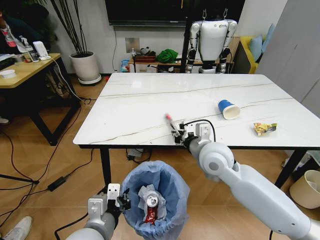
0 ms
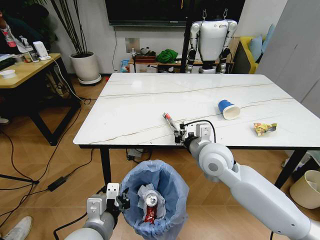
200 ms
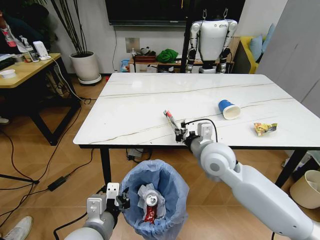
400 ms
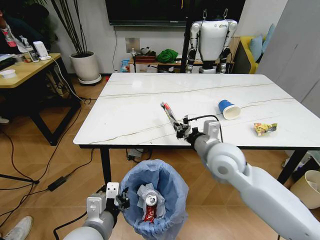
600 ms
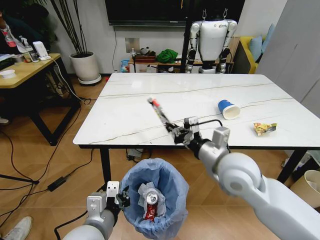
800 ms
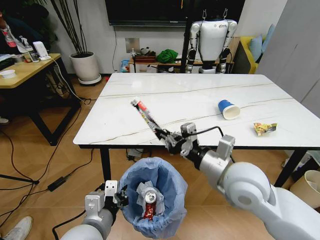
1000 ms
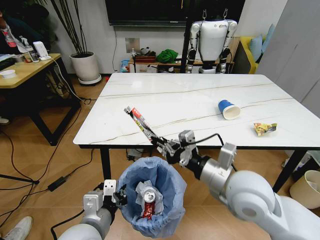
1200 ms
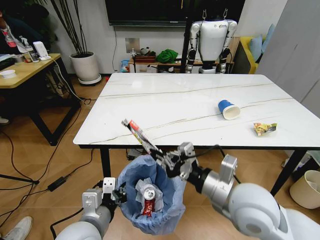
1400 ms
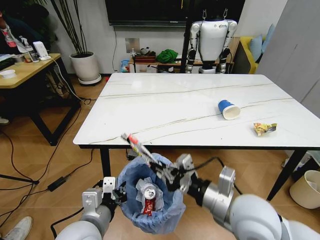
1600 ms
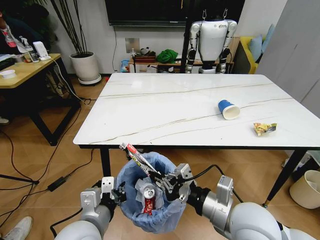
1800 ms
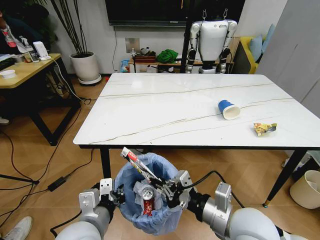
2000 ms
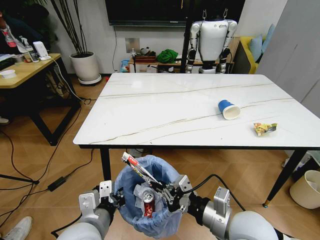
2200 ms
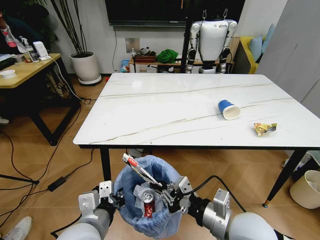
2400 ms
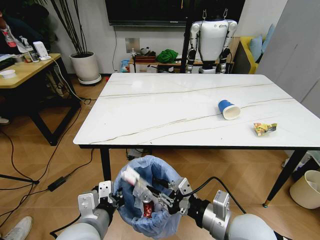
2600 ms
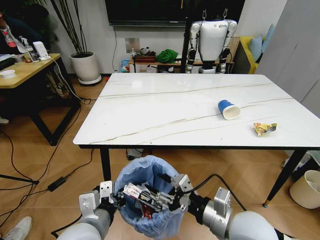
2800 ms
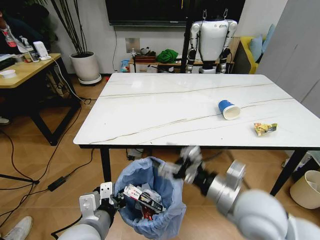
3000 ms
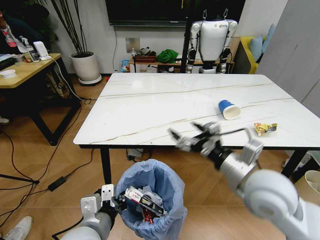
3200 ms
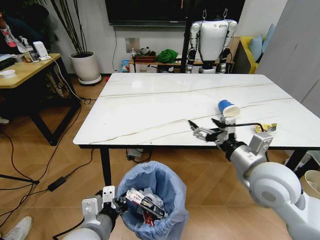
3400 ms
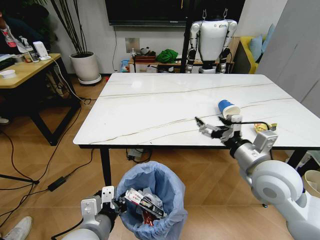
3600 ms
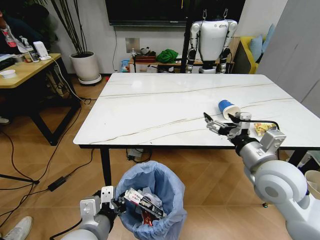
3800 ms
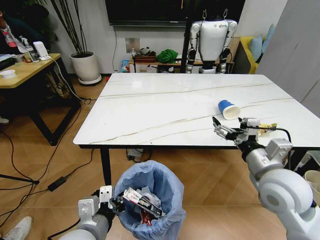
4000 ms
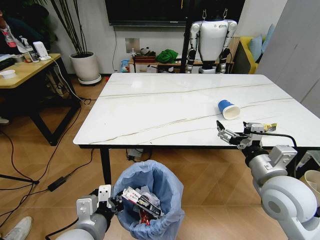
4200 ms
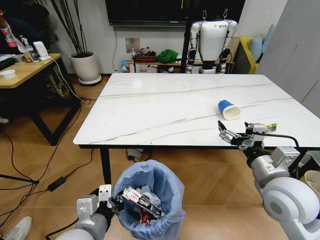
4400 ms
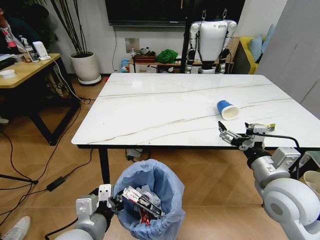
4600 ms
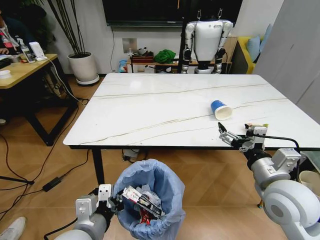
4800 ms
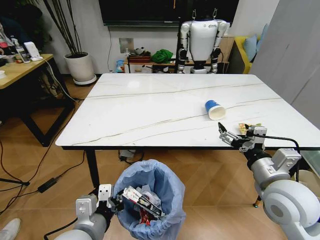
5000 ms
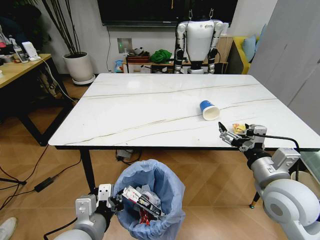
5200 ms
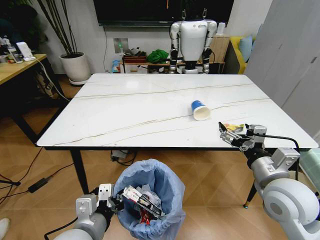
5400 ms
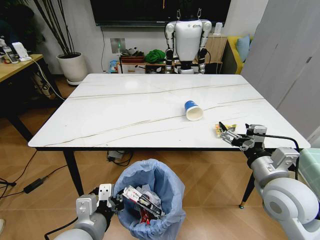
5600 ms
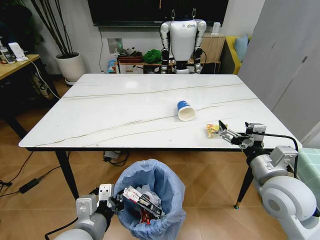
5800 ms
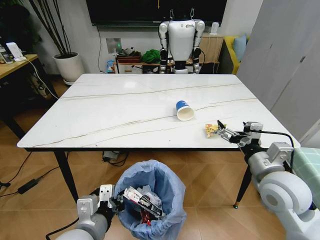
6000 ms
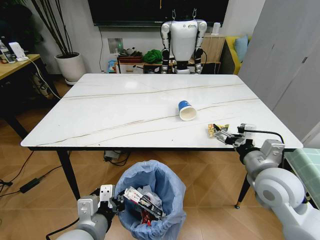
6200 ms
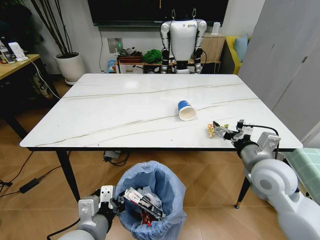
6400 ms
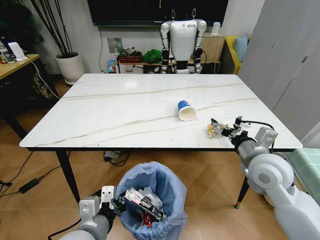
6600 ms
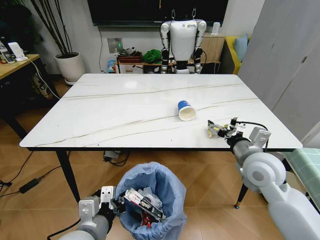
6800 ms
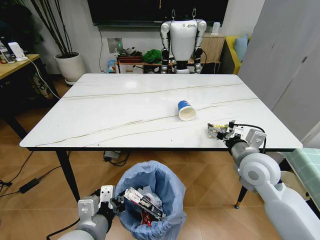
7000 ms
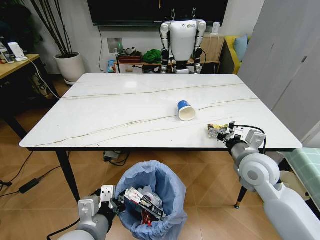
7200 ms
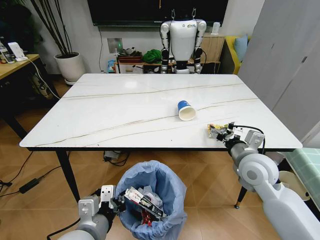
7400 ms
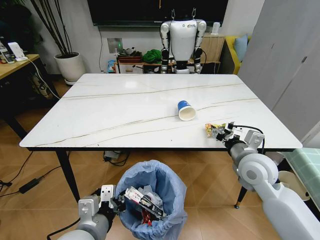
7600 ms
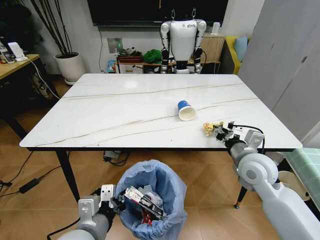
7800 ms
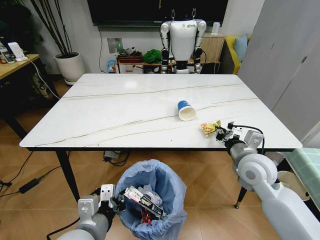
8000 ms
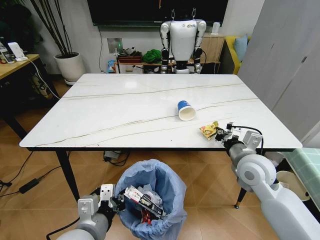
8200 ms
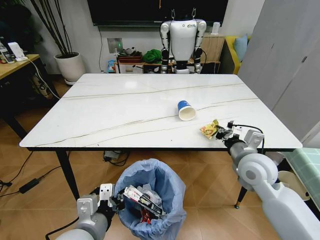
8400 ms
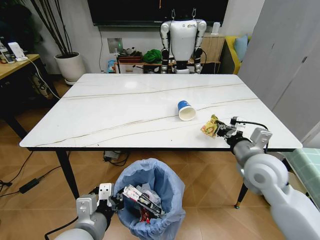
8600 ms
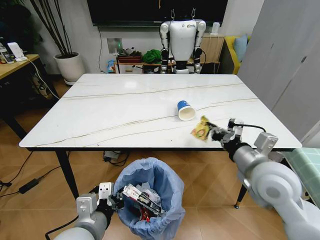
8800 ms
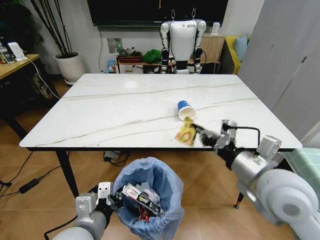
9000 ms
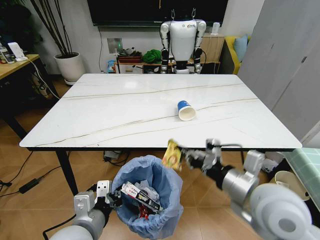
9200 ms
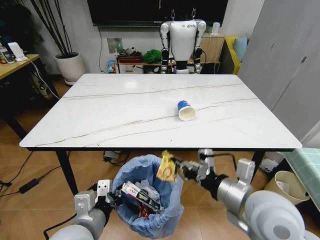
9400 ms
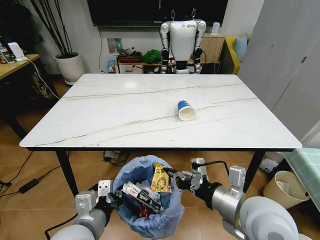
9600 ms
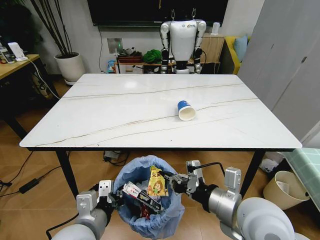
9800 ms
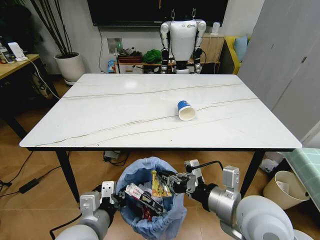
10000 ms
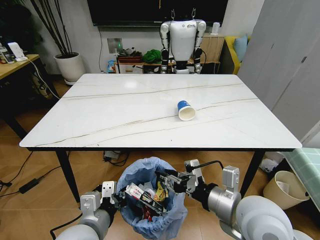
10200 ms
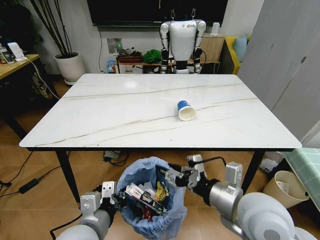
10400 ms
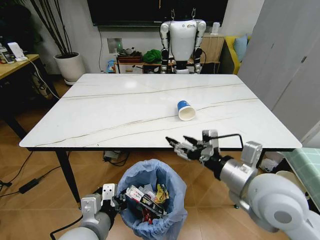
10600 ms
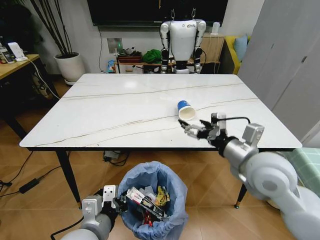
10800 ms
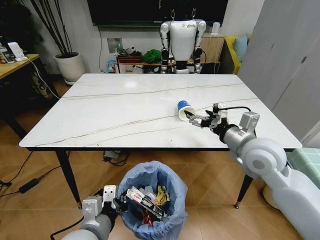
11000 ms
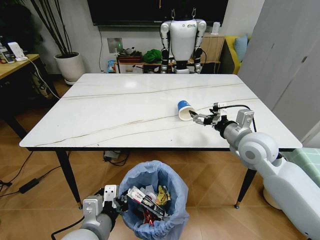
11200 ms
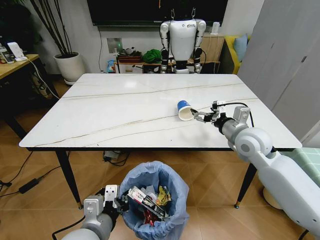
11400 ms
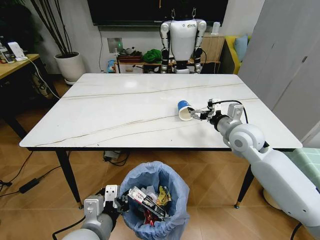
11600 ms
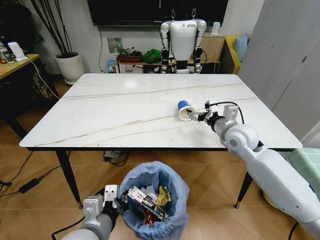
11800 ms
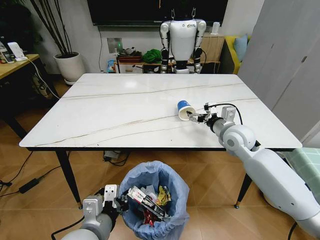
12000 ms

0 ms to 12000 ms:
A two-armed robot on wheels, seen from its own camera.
Task of the whole recording: Pick up the trash bin and place the trash from the table into it.
0 ms to 1600 ms: The right gripper is displaced backward by about 15 cm.
1600 ms to 3000 ms: The right gripper opens up.
3000 ms to 4400 ms: The right gripper is displaced to the right by some 10 cm.
6000 ms to 7600 ms: The right gripper shifts approximately 5 cm forward, and closes.
7600 ms to 9000 ms: The right gripper moves backward and upward, about 15 cm, and closes up.
9000 ms to 10400 ms: The right gripper shifts by about 5 cm, and opens its fingers.
10400 ms to 12000 ms: The right gripper travels forward by approximately 25 cm, and opens its fingers.

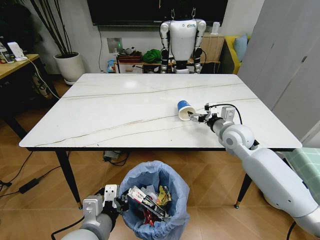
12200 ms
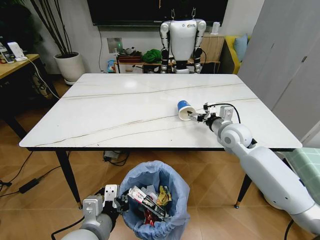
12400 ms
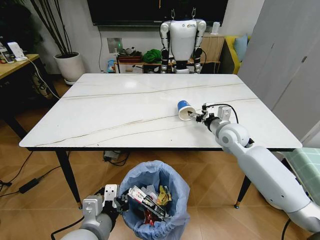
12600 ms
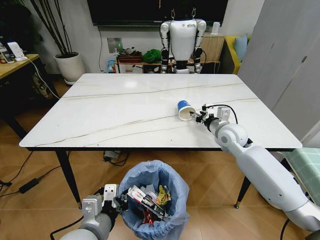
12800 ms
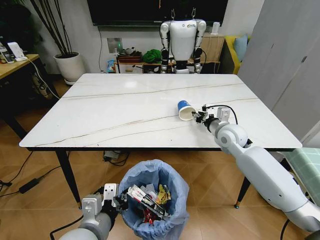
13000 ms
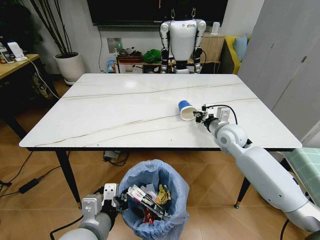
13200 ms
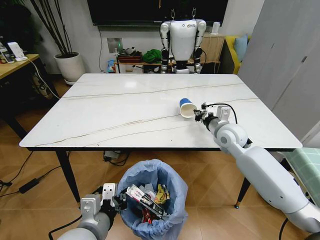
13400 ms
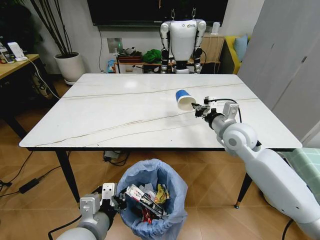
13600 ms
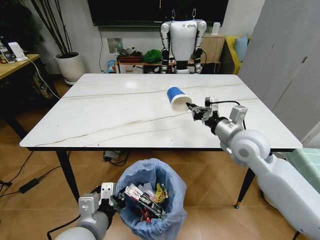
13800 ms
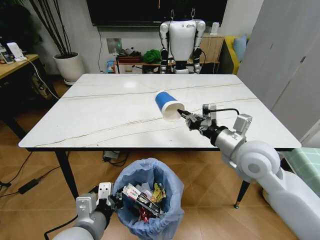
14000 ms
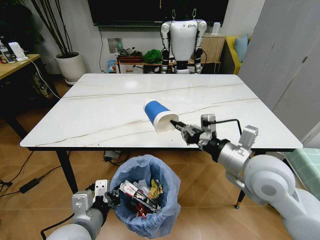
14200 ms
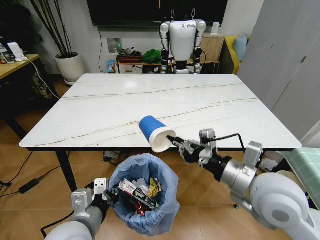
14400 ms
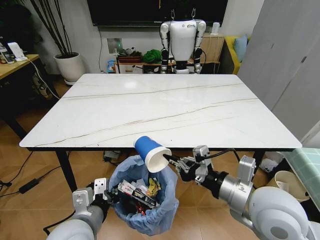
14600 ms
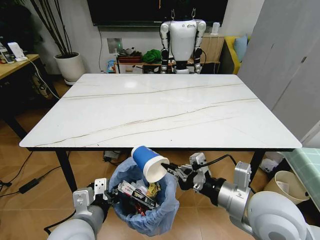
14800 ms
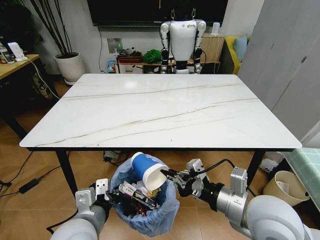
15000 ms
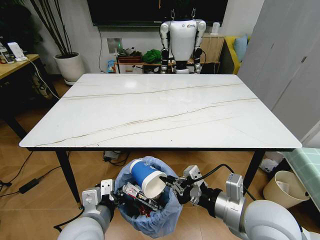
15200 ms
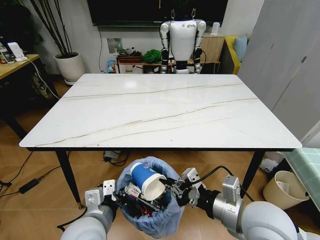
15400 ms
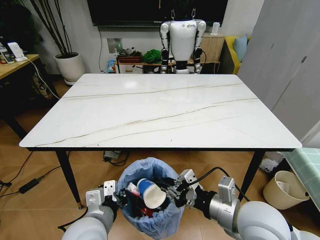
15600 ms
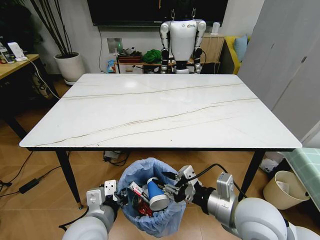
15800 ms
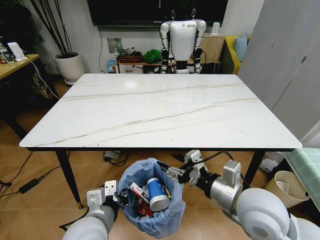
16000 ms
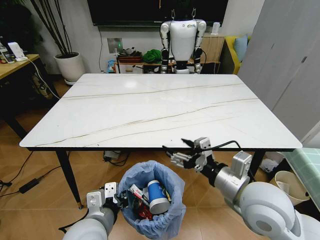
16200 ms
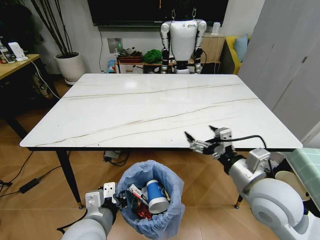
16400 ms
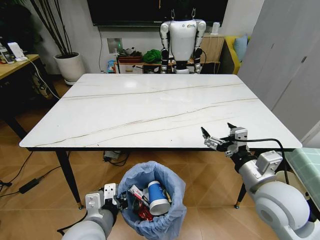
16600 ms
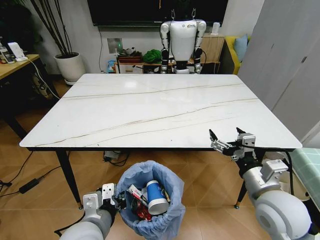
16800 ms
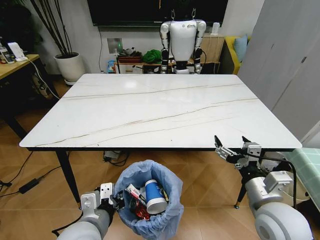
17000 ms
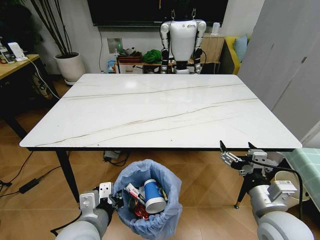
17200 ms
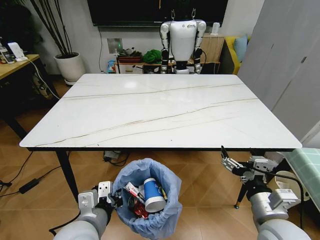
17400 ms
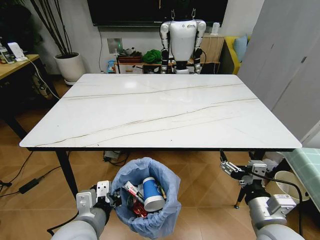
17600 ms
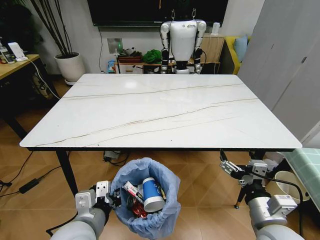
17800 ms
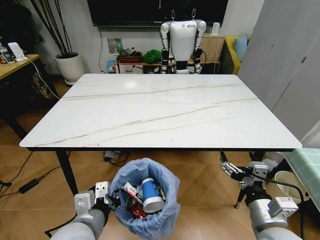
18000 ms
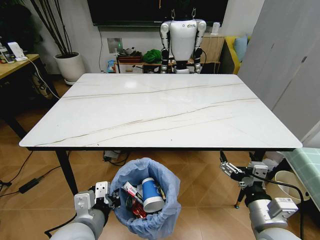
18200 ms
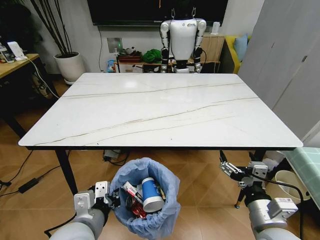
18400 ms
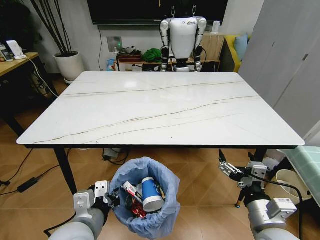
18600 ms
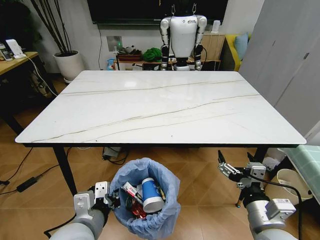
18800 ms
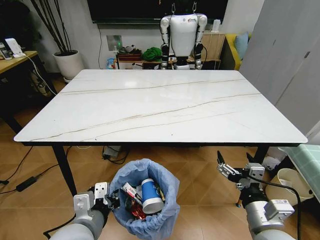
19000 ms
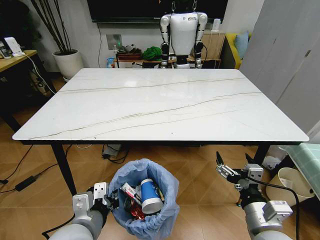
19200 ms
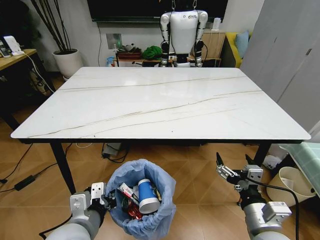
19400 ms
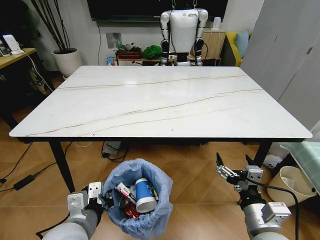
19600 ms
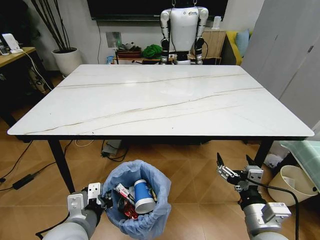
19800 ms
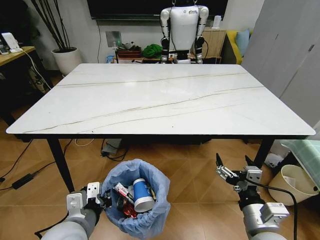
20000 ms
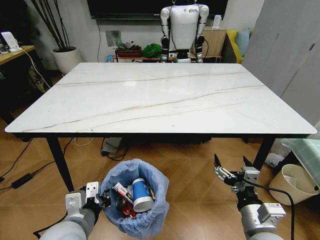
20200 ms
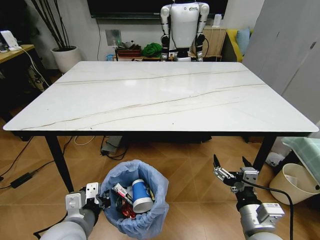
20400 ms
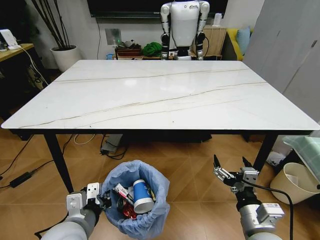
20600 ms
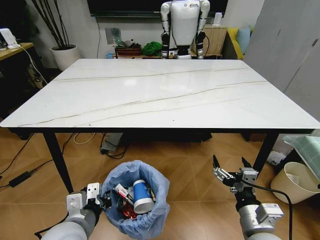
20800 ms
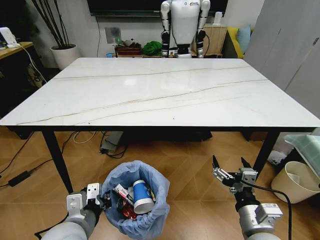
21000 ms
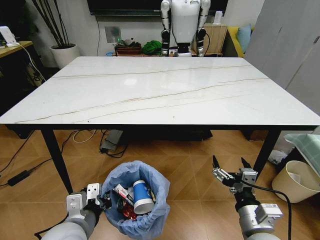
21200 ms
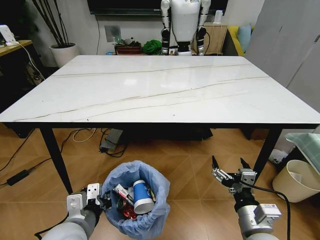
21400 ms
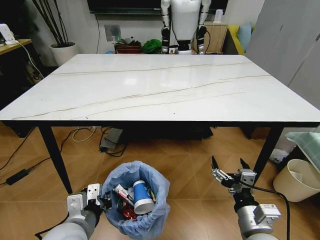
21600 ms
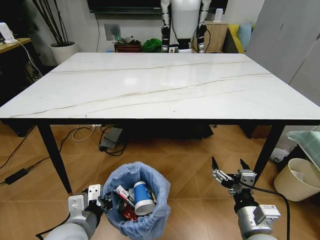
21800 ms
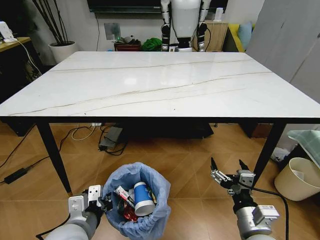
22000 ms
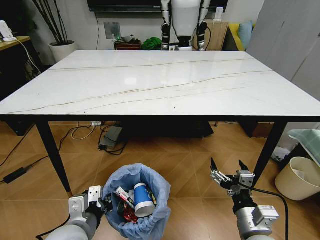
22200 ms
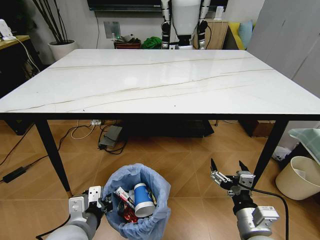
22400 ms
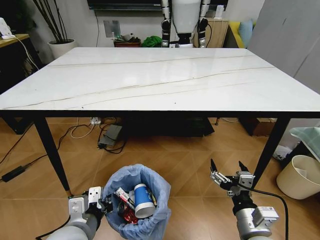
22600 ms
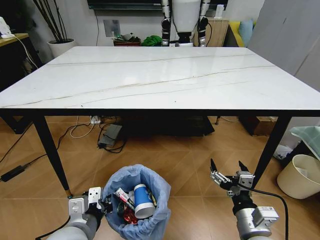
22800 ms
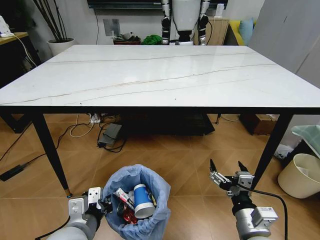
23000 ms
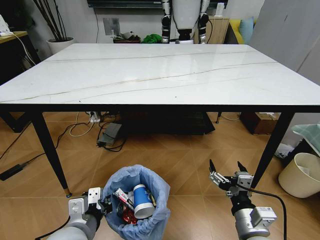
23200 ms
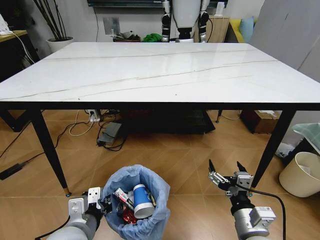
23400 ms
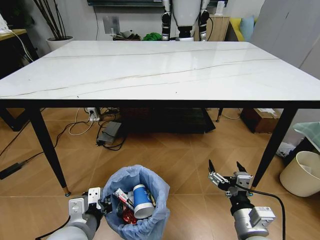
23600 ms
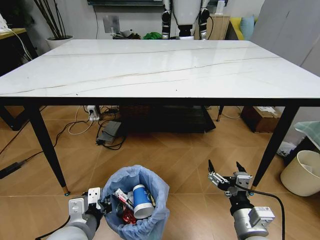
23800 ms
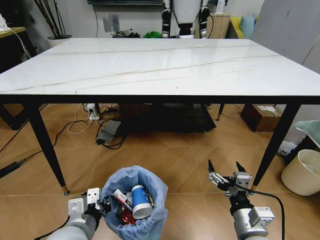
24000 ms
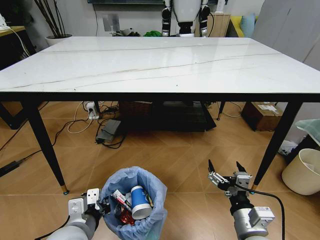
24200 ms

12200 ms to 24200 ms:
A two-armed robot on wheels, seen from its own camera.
Task of the whole recording: Pick up the trash bin and place the trash from the table into it.
12200 ms to 13800 ms: The right gripper travels backward and upward by approximately 10 cm, and closes up.
13800 ms to 15200 ms: The right gripper is displaced backward by about 20 cm.
15200 ms to 16600 ms: The right gripper changes place by about 5 cm, and opens up.
16600 ms to 18200 ms: The right gripper shifts about 10 cm backward and downward.
